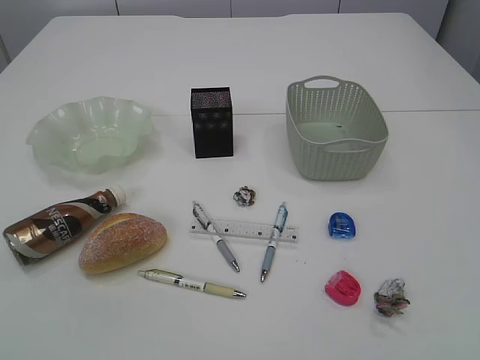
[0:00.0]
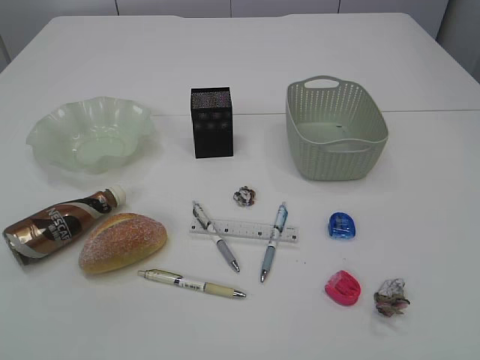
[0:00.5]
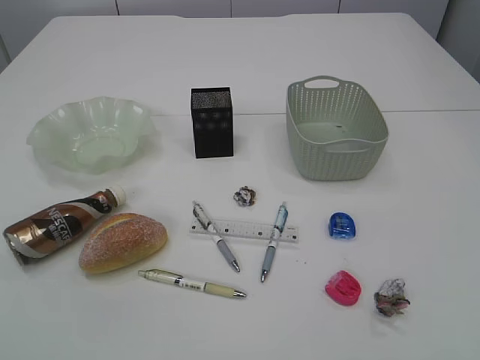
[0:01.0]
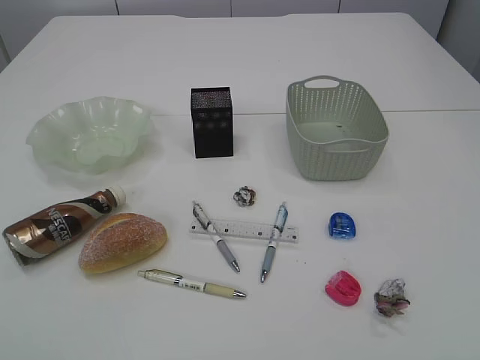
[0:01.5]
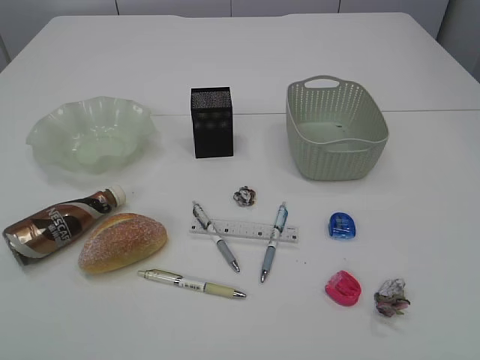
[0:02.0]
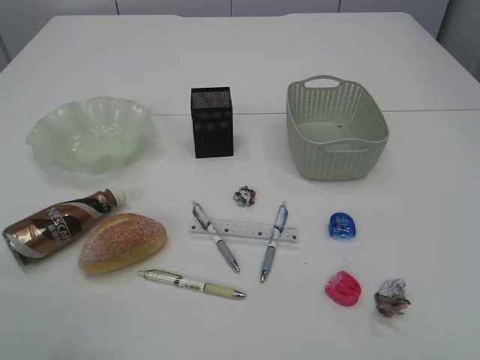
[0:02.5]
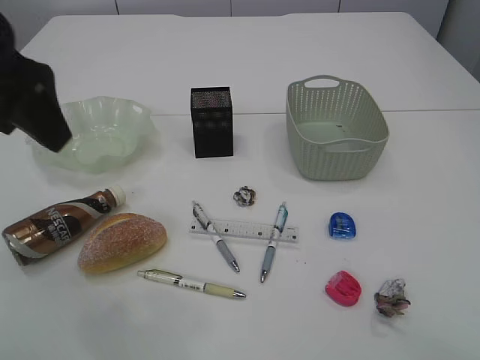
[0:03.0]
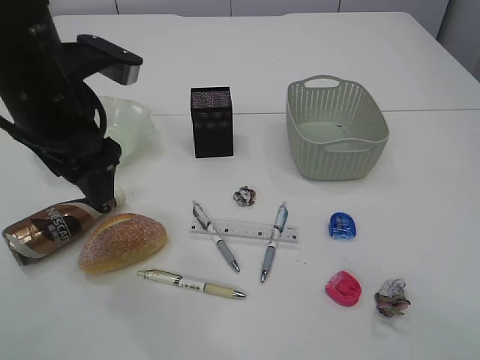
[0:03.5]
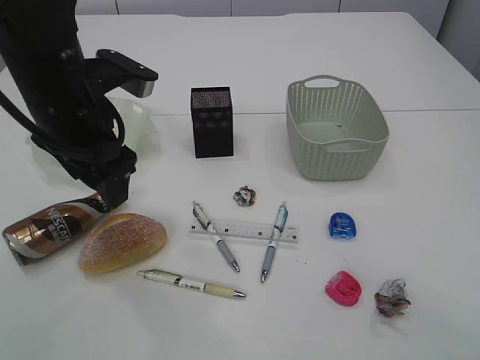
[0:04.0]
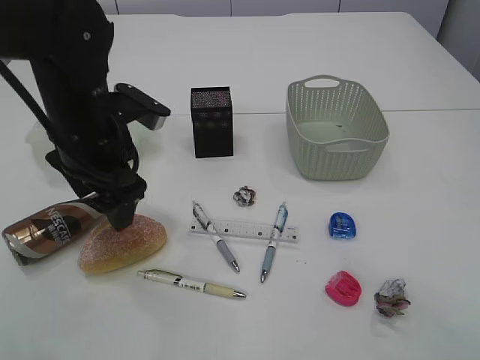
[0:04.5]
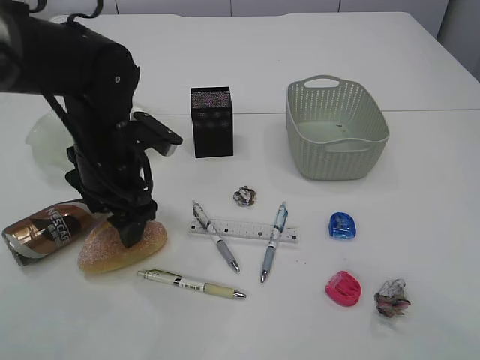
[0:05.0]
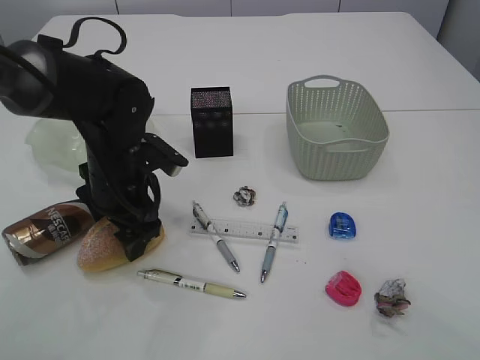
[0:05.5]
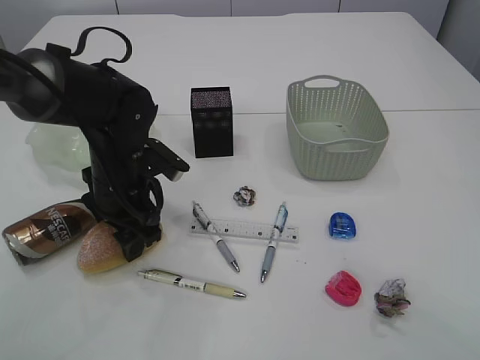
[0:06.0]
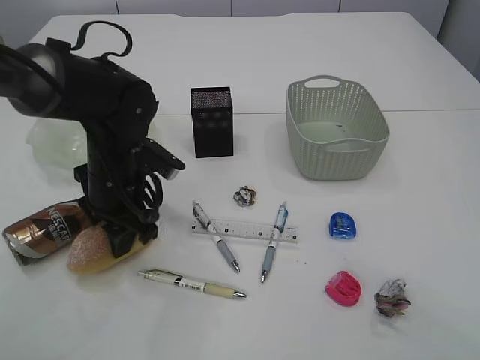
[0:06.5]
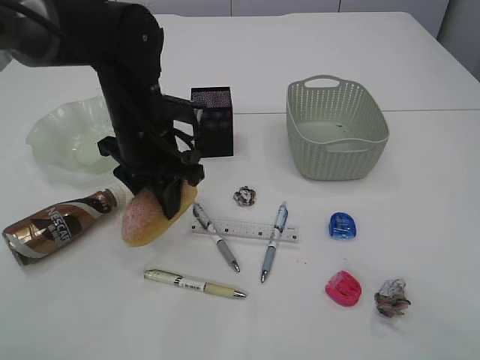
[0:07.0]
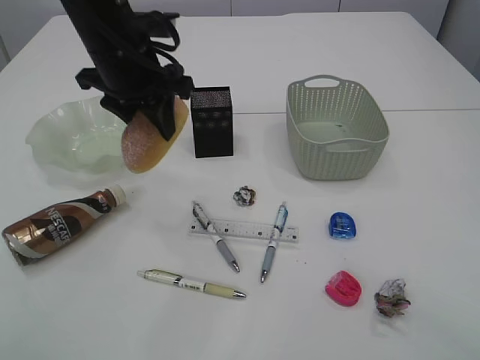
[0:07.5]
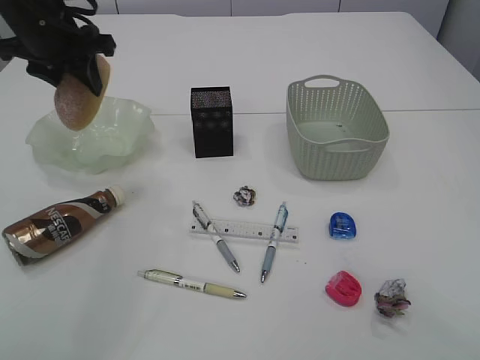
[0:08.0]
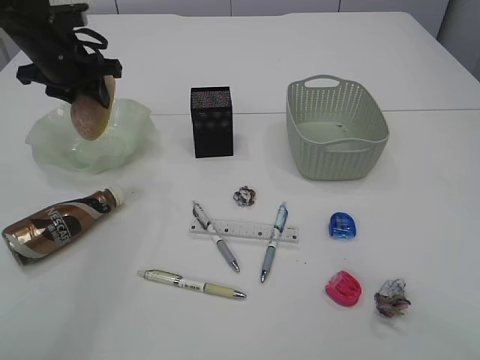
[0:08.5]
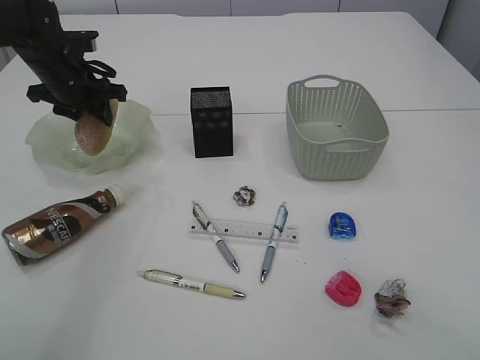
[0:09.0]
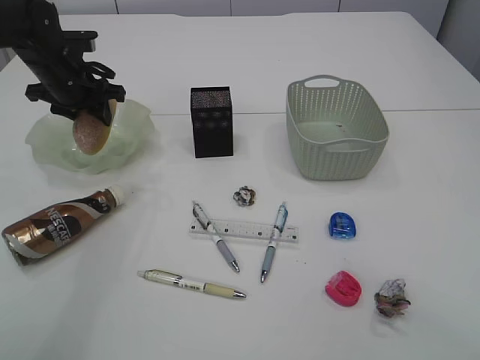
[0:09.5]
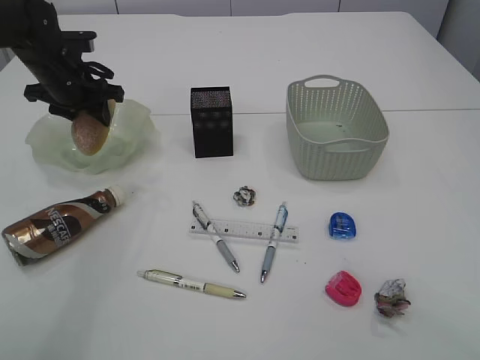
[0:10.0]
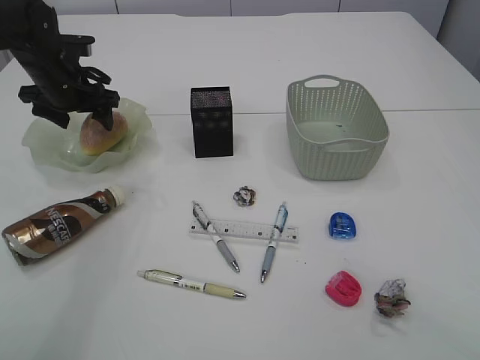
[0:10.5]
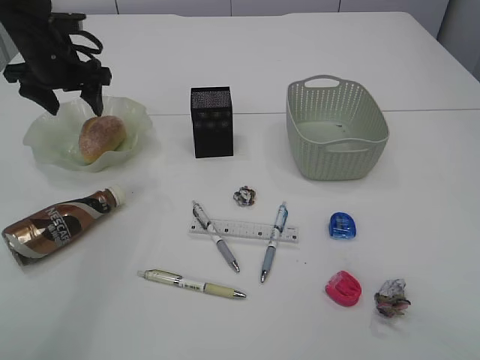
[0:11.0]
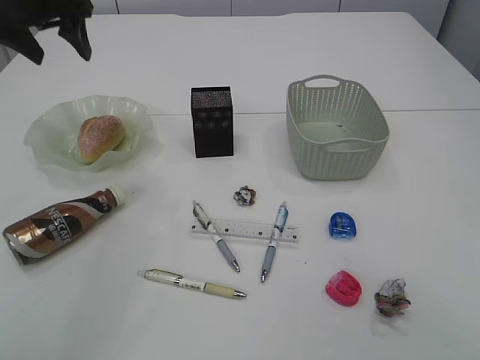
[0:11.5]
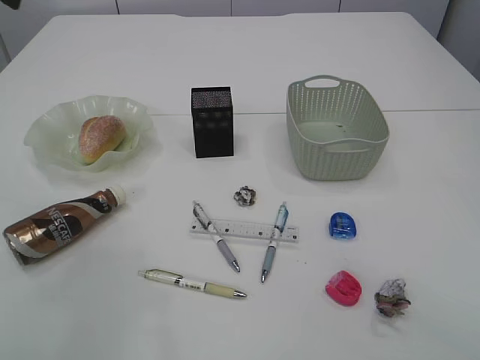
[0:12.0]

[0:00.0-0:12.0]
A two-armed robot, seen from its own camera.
Step, 0:07.5 to 0:11.0: place the bread in the plate.
0:02.0 to 0:04.0: The left gripper travels forward, to the right and downward by approximately 30 cm.
0:04.0 to 0:06.0: The left gripper moves downward, approximately 15 cm.
0:06.0 to 0:08.0: The left gripper moves upward, forward and to the left, about 20 cm, and closes its fingers.
0:08.0 to 0:10.0: The left gripper moves downward and forward, roughly 10 cm.
0:10.0 to 0:12.0: The left gripper shifts roughly 25 cm upward and backward, and opens.

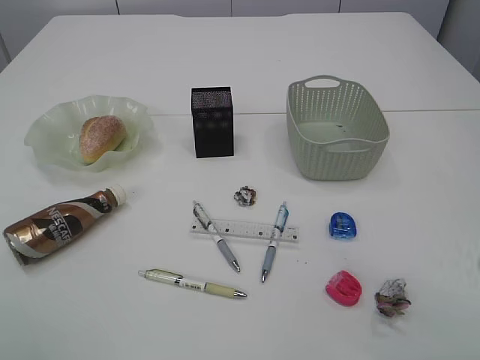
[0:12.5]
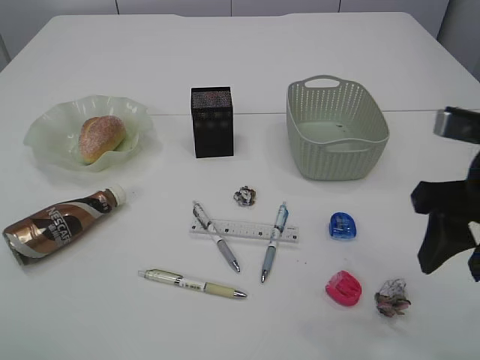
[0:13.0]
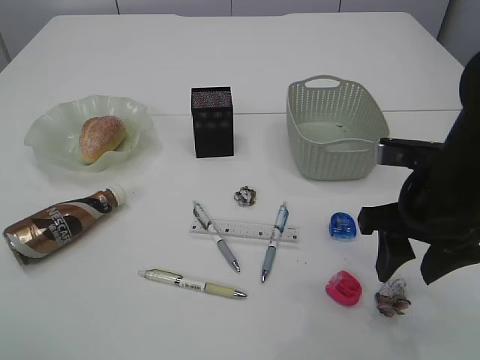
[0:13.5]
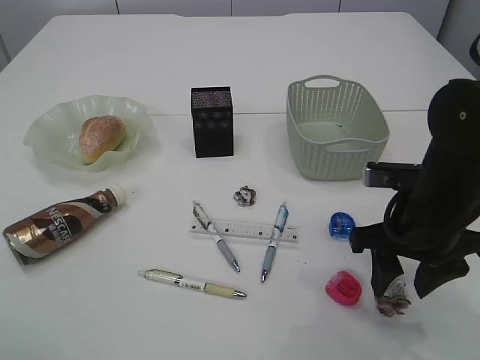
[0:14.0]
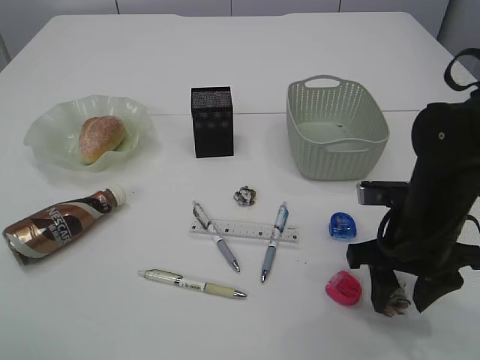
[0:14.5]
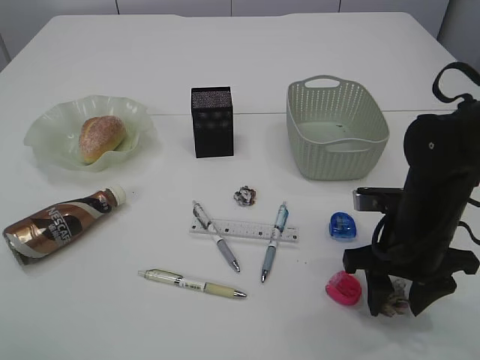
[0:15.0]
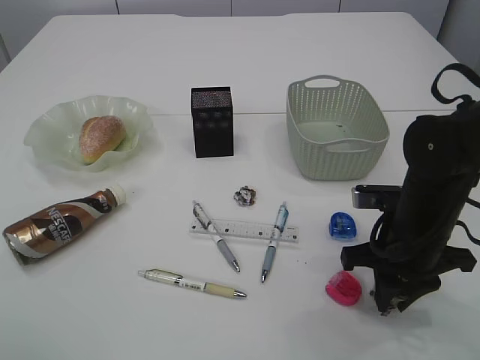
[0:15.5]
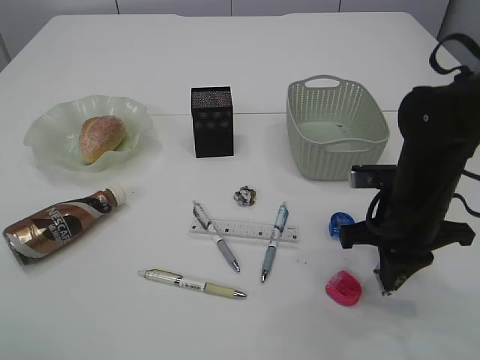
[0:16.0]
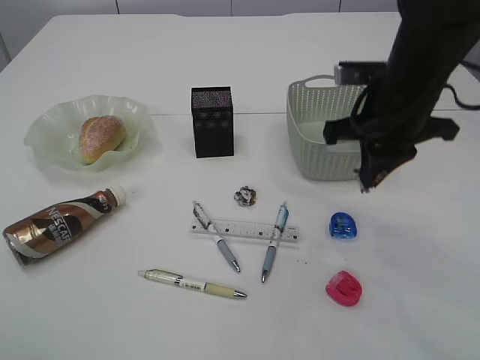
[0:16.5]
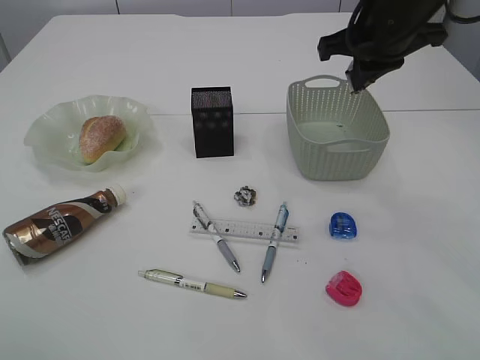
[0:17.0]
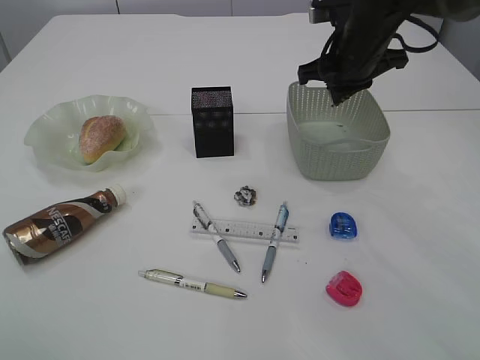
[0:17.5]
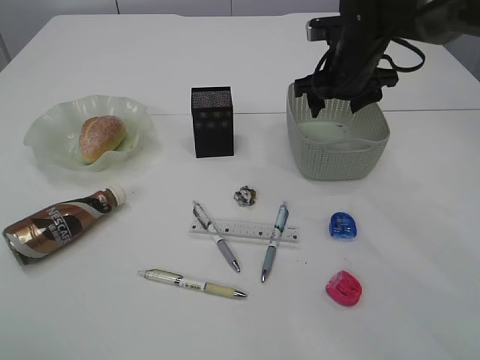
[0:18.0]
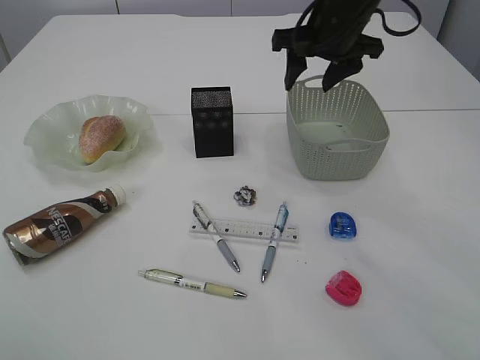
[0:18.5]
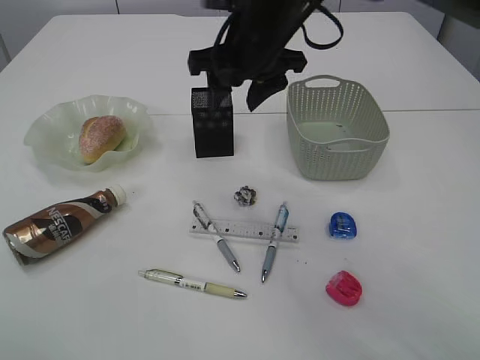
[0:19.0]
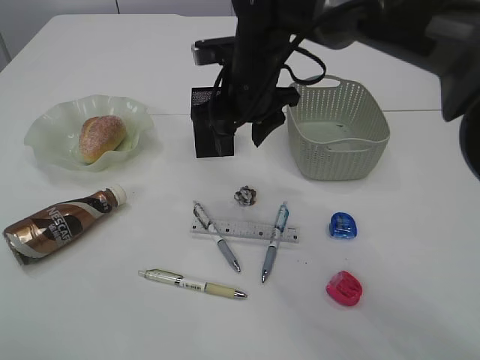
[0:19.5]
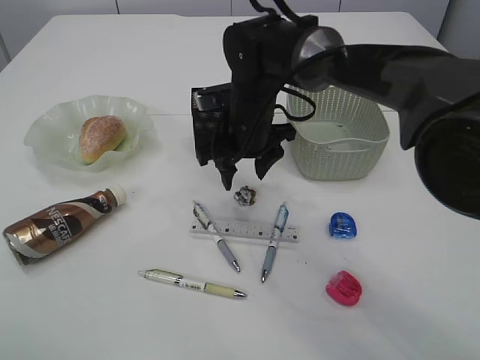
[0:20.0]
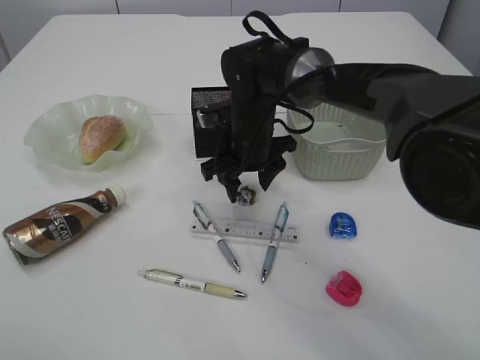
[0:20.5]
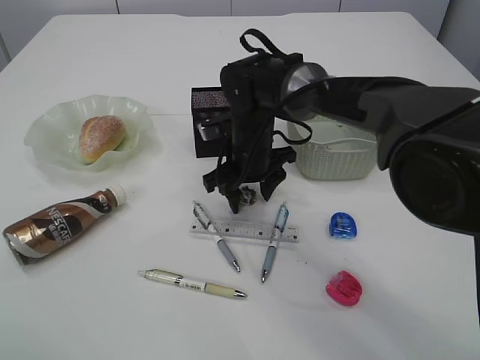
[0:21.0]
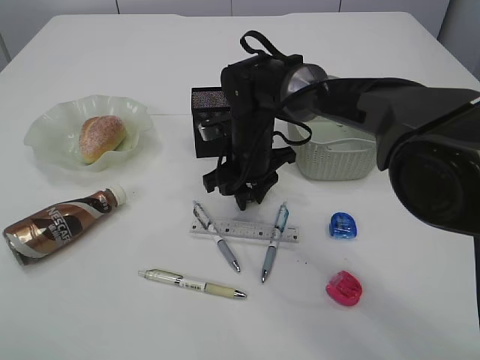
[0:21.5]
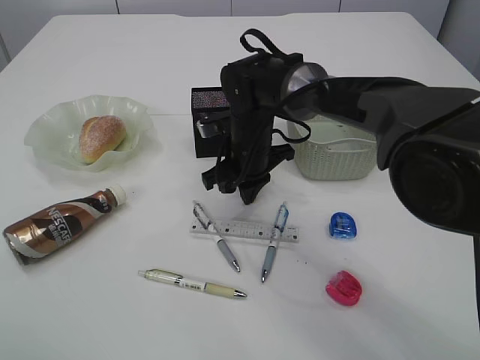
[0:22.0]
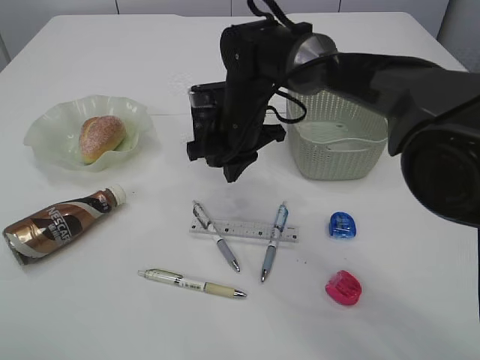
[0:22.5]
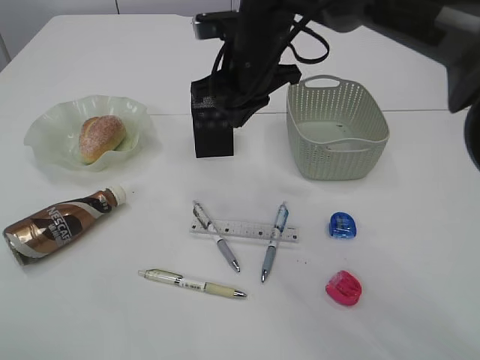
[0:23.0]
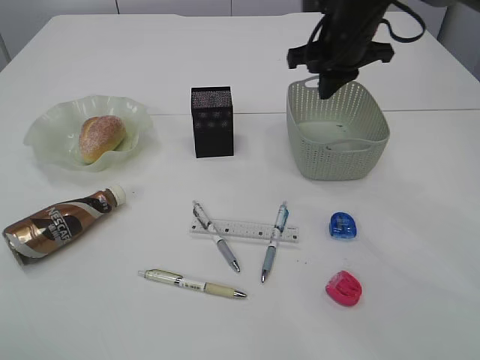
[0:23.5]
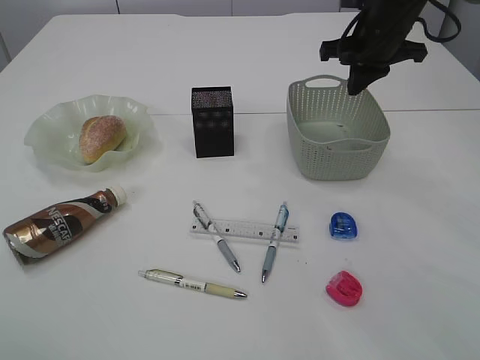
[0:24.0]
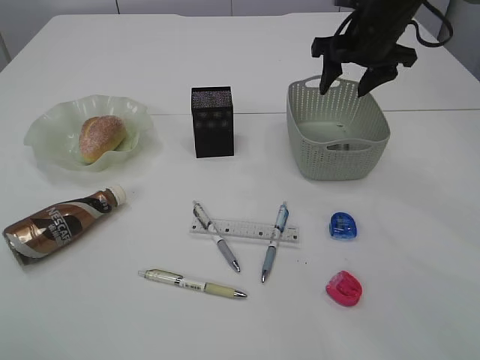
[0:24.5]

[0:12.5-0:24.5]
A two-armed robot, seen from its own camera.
Step, 0:12.5 to 0:16.0: Pick up the waste paper.
Step, 0:16.5 to 0:18.0: Place the waste paper in the basket.
Step, 0:18.5 to 0:22.5: Pick up the waste paper.
0:12.5 to 0:14.5: The right gripper is displaced downward and forward by about 20 cm.
0:14.5 to 0:16.5: The right gripper travels upward and forward by about 15 cm, and closes up.
0:16.5 to 0:18.5: The right gripper moves forward, some 10 cm, and opens.
0:18.5 to 0:20.5: The right gripper moves downward and to the left, about 20 cm.
0:20.5 to 0:22.5: The right gripper closes.
0:22.5 to 0:24.5: The right gripper travels to the right and upward by some 20 cm, and opens.

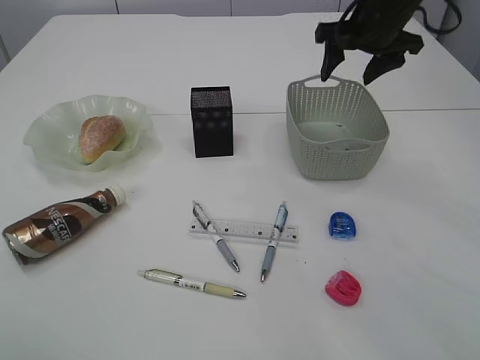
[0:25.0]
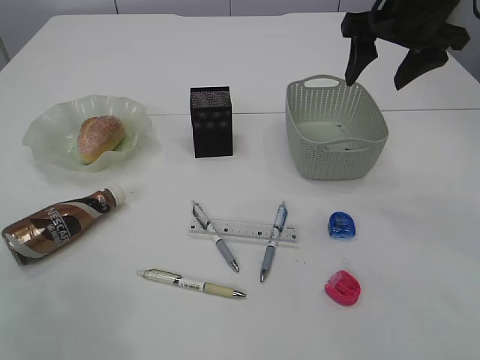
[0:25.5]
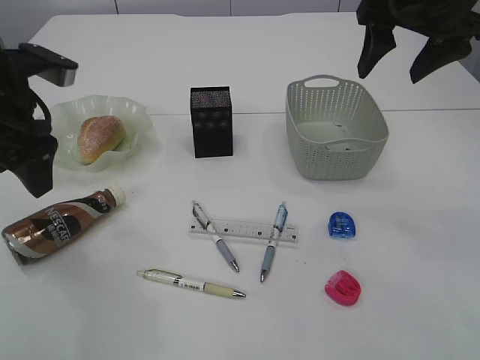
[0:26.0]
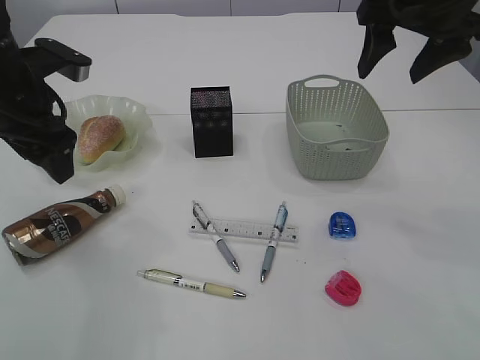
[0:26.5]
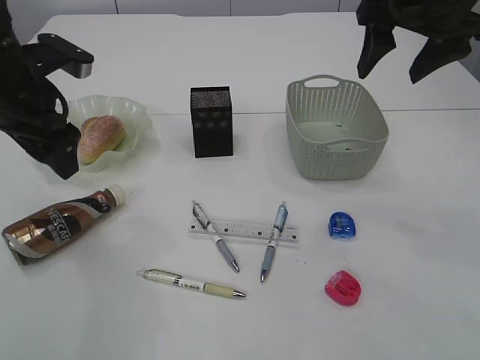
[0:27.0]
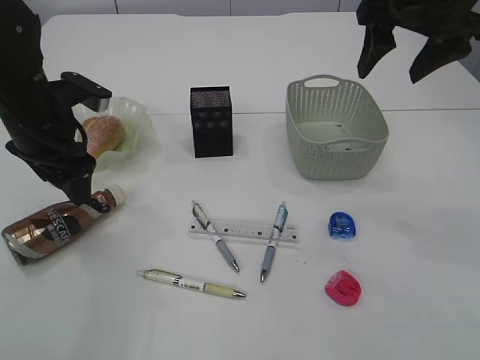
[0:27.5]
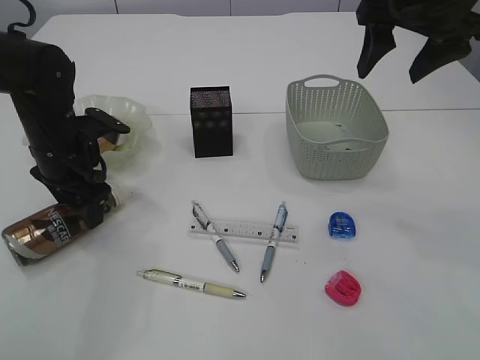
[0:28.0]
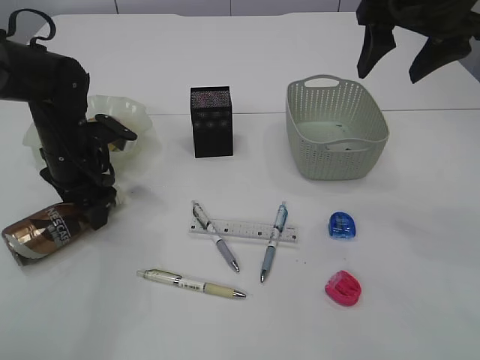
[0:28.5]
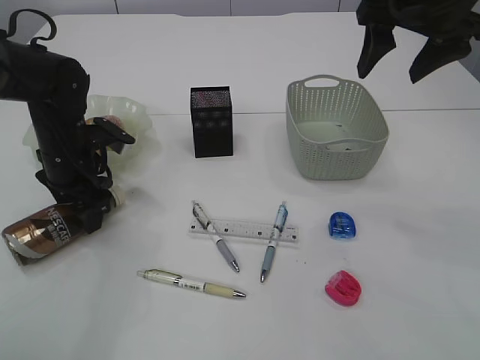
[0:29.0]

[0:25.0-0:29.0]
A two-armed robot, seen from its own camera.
0:25.0 to 0:27.0: The right gripper goes about 10 cm backward and upward. The left gripper is displaced downward and forward by roughly 25 cm.
0:27.0 to 0:29.0: The left gripper shifts about 10 cm downward.
